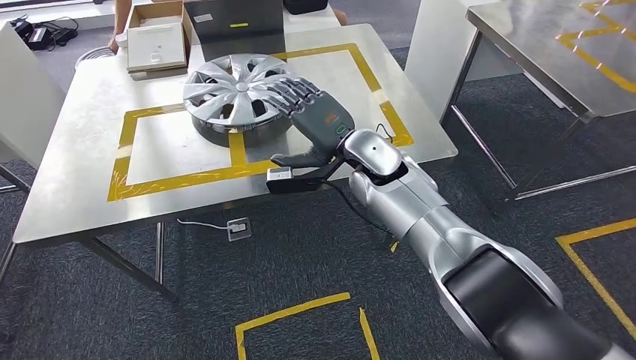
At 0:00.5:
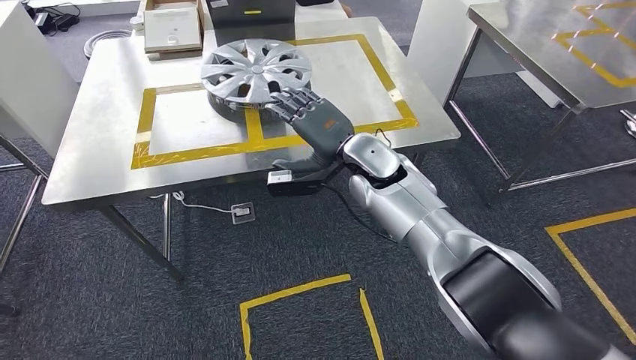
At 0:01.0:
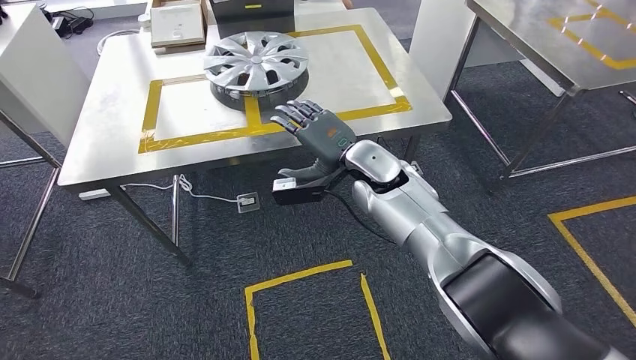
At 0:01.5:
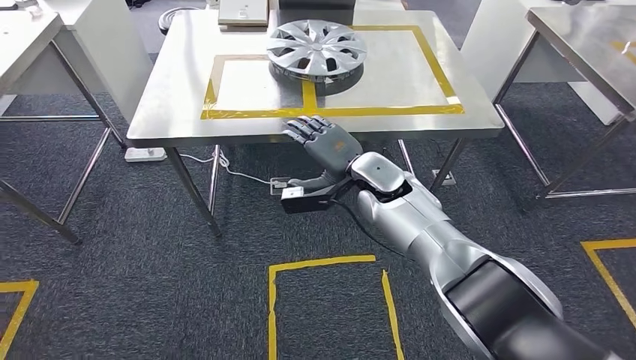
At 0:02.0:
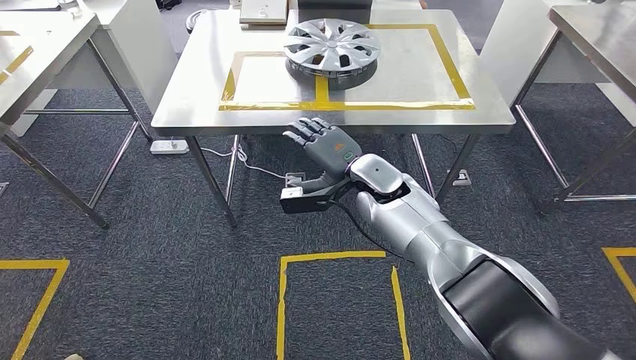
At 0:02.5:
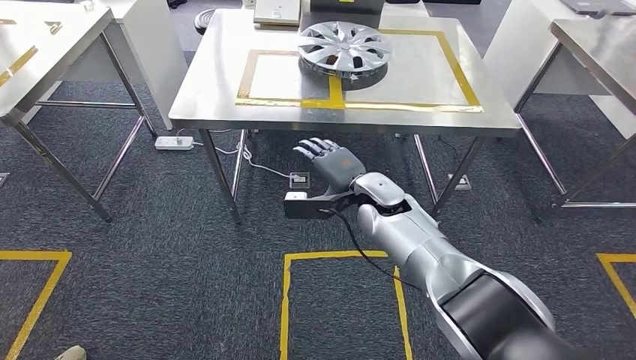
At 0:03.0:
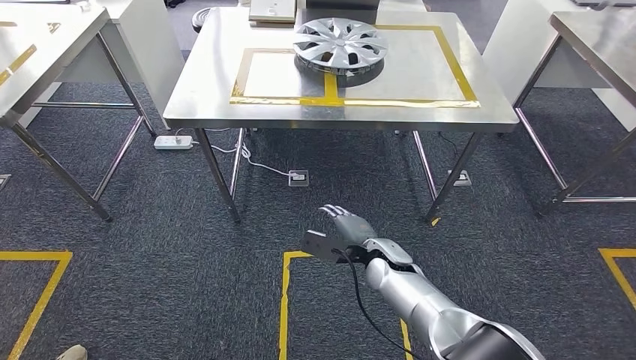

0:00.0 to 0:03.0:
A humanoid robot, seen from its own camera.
Step, 0:00.0 to 0:03.0: Move to the initial position at the workbench.

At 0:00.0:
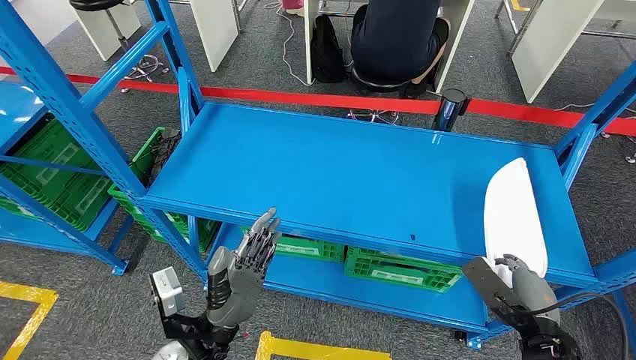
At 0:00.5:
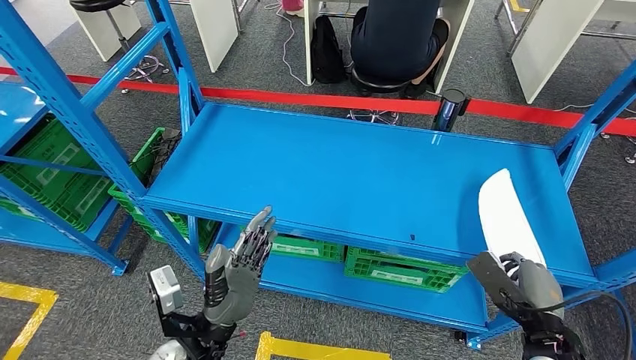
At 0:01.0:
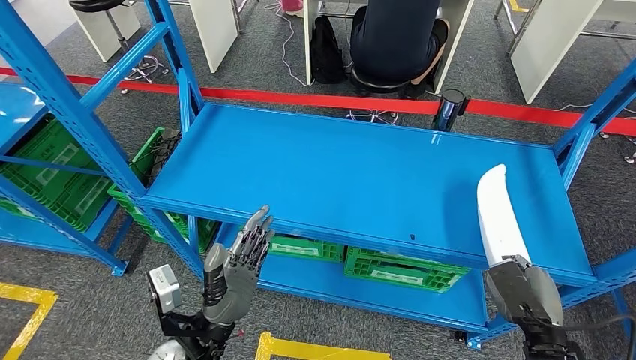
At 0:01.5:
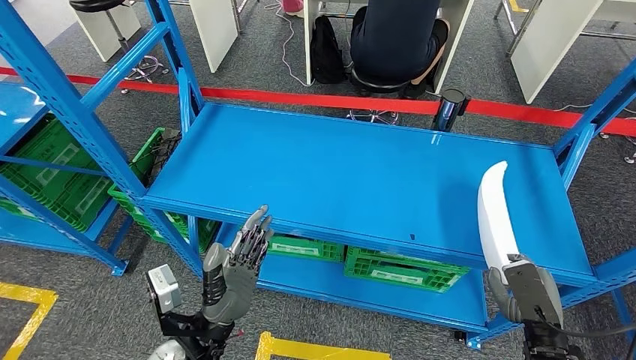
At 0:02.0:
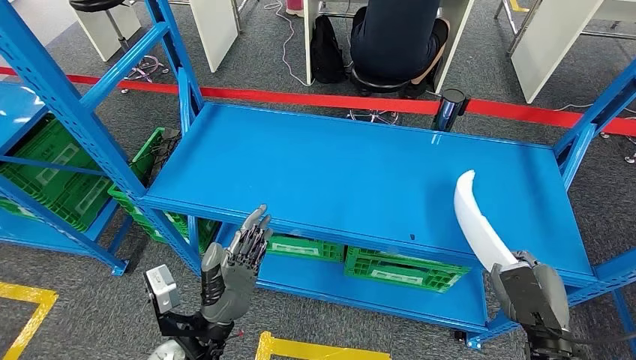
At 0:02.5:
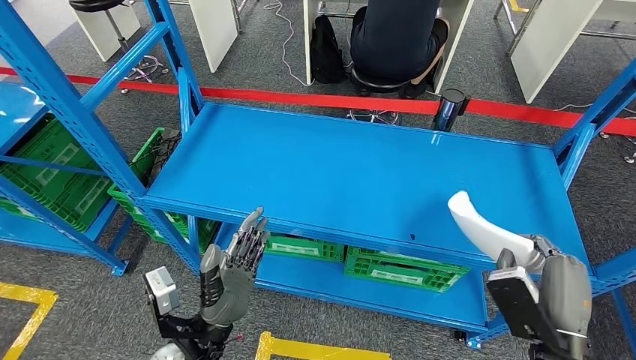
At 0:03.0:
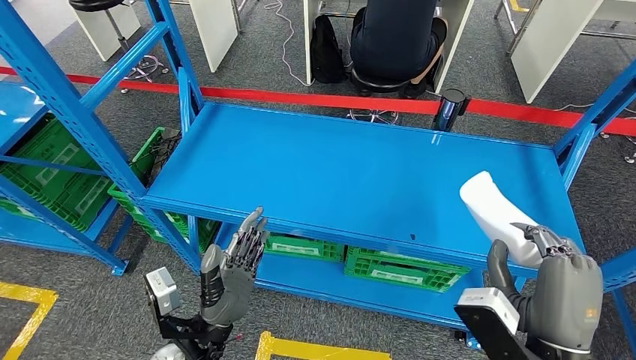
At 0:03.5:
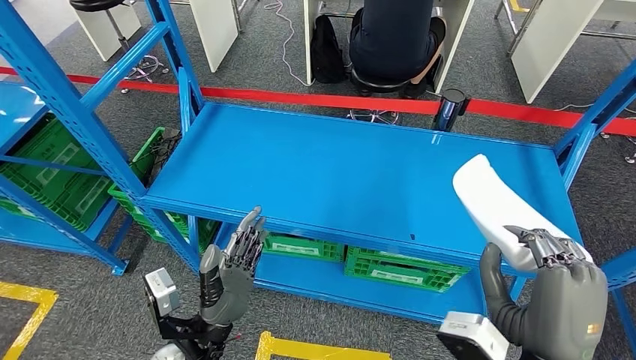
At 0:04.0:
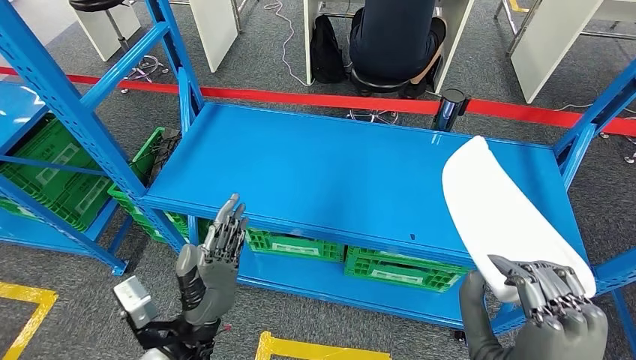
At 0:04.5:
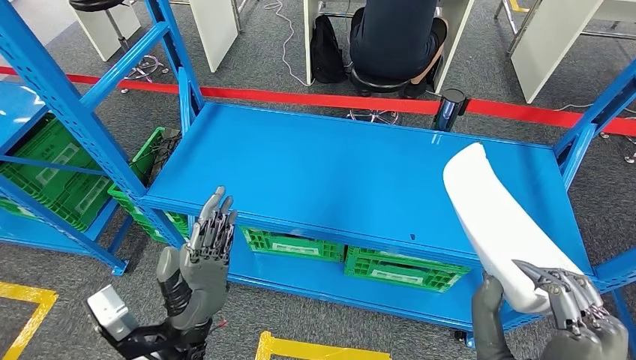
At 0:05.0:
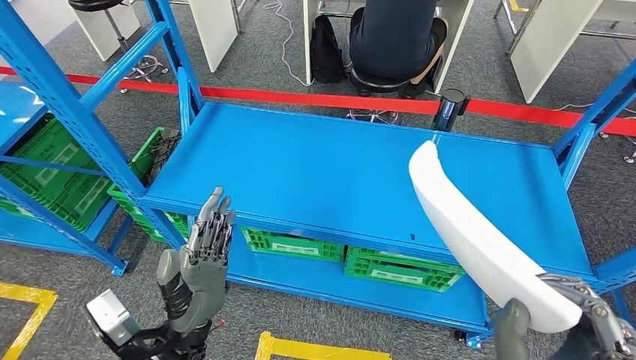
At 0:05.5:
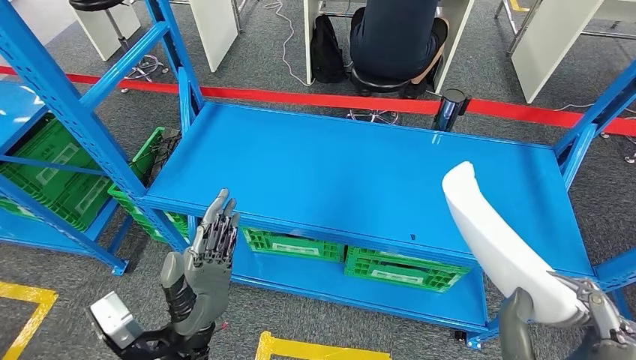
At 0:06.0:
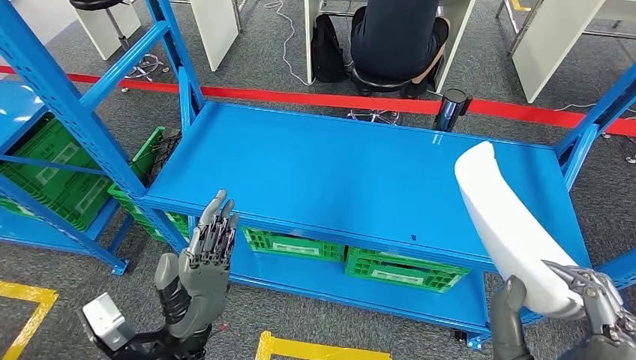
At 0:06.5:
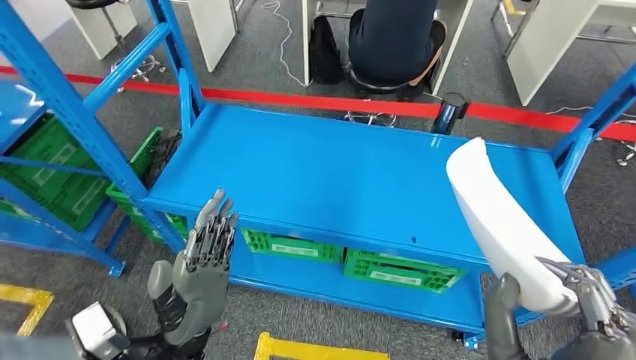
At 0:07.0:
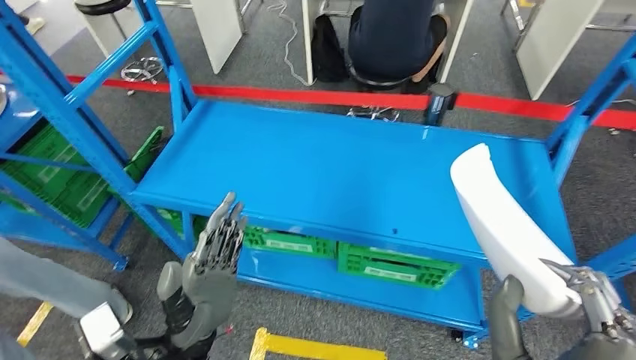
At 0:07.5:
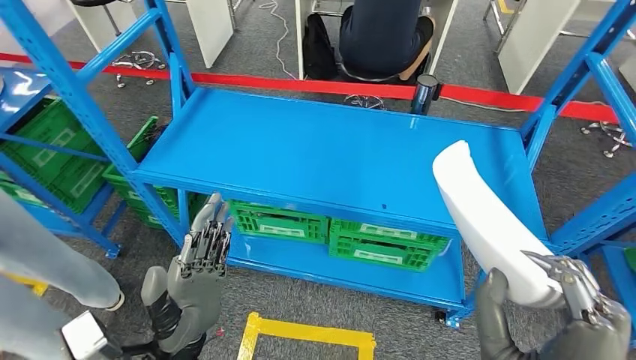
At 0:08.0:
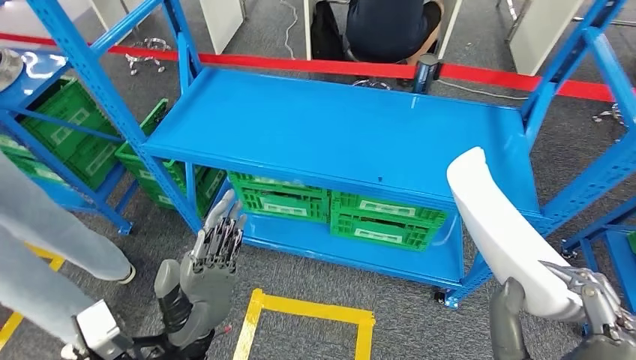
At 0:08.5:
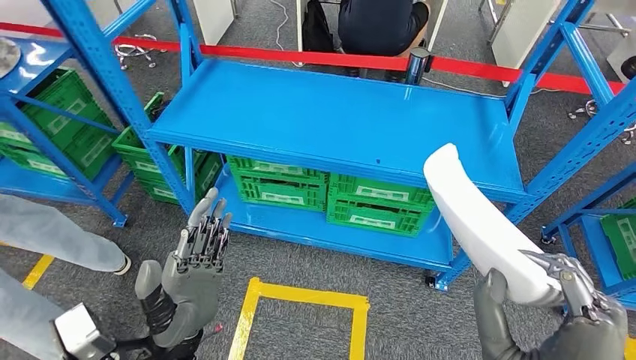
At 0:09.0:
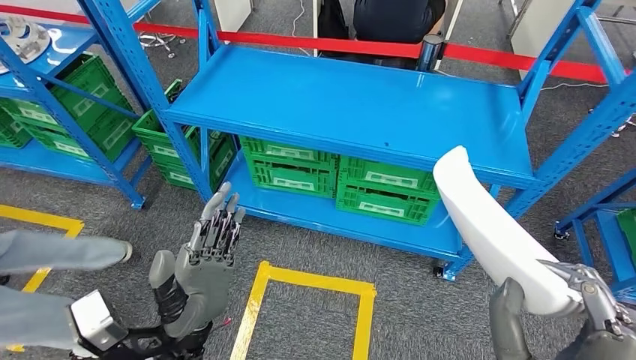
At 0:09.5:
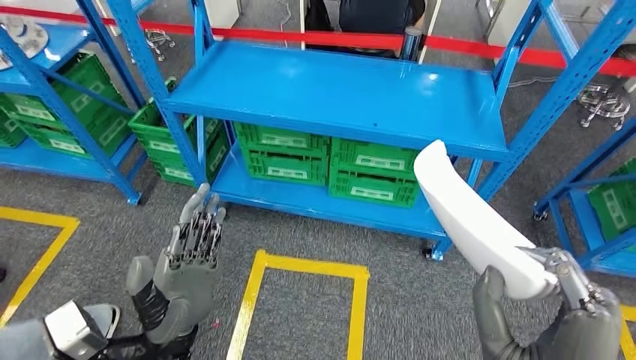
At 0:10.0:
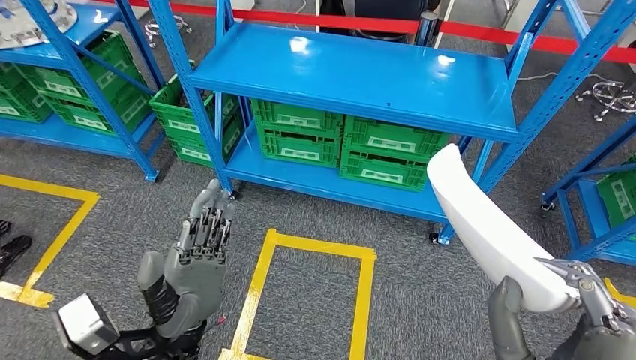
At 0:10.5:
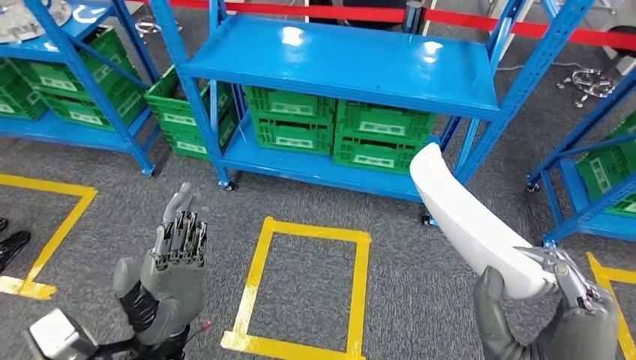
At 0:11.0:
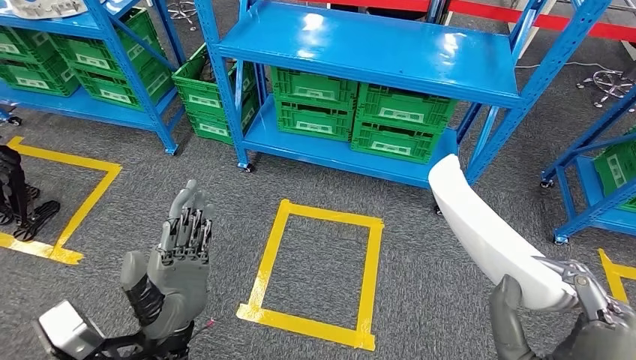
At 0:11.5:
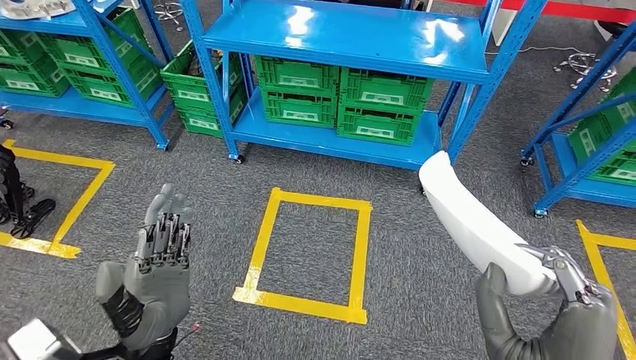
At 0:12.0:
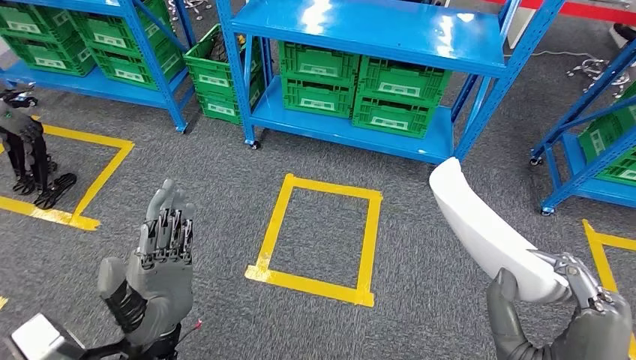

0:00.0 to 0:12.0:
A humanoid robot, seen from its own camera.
Step, 0:00.0 to 0:04.5: Pick up the small parts from the shelf.
0:02.0 to 0:04.0: The right hand is displaced to the left, upward and backward by some 20 cm.

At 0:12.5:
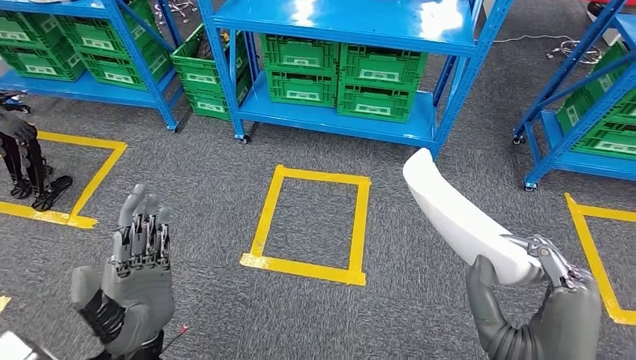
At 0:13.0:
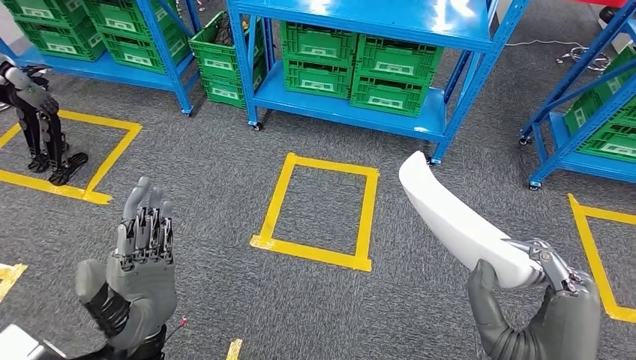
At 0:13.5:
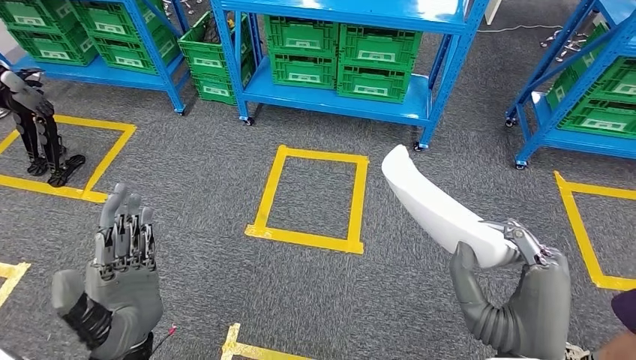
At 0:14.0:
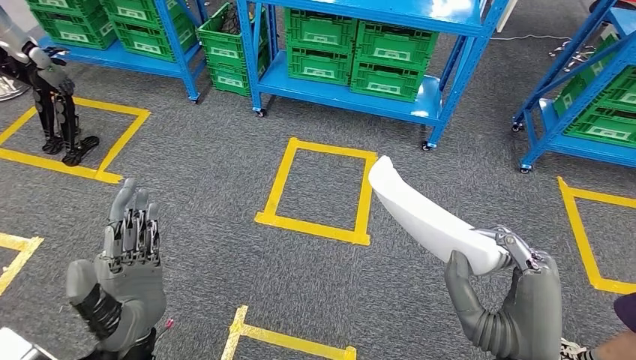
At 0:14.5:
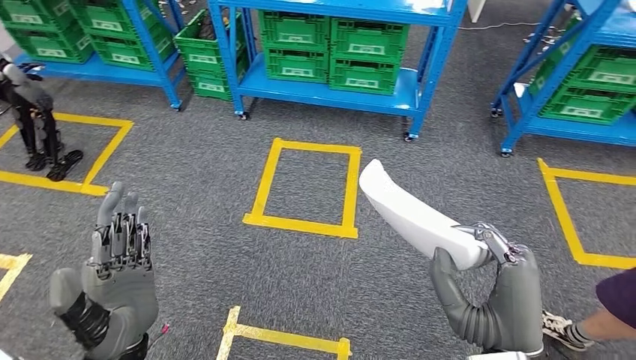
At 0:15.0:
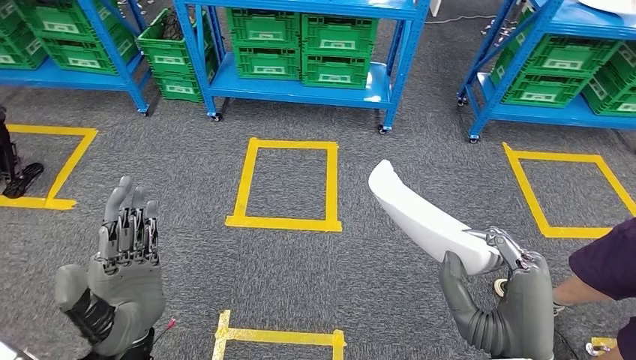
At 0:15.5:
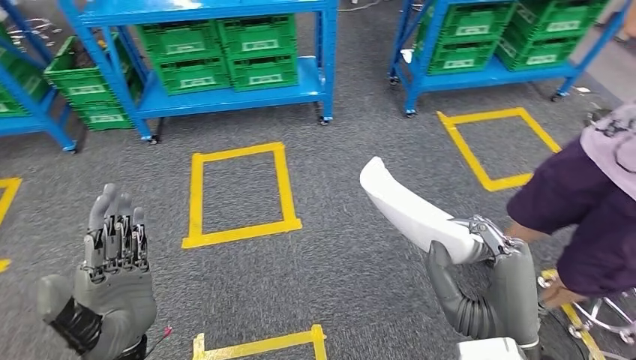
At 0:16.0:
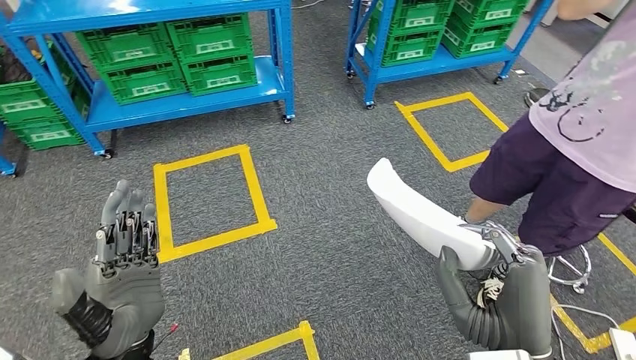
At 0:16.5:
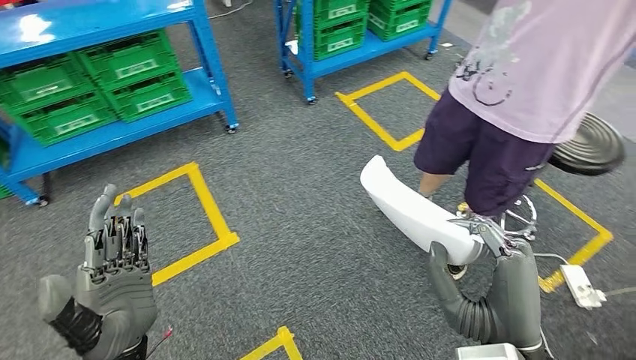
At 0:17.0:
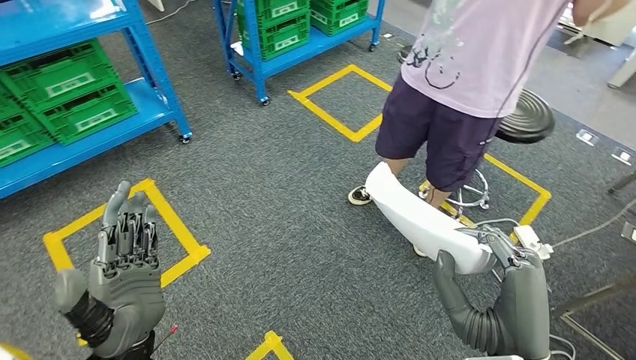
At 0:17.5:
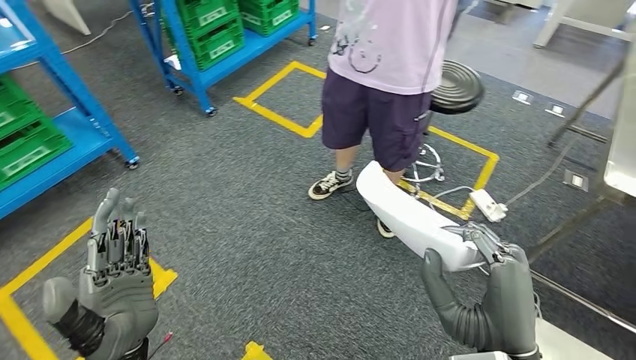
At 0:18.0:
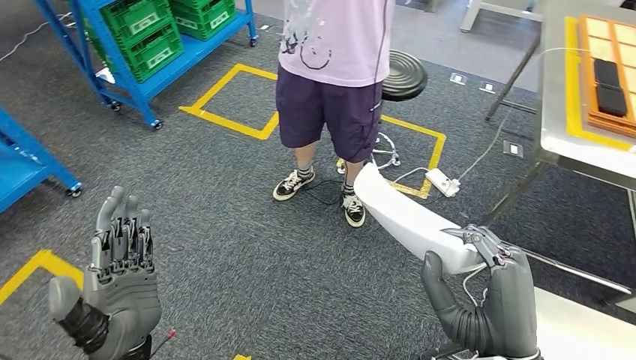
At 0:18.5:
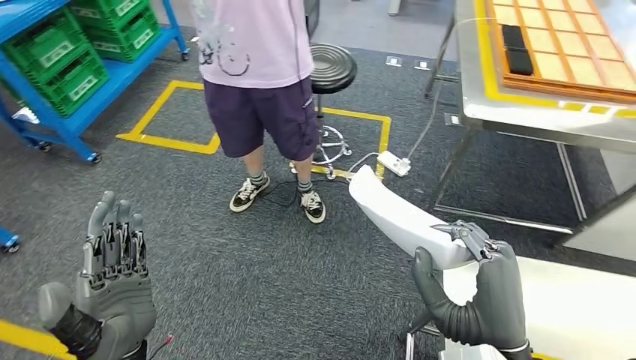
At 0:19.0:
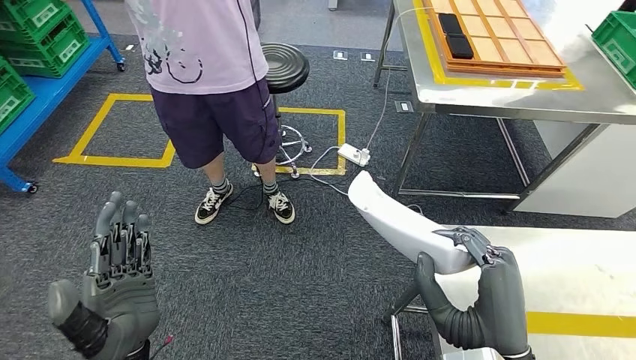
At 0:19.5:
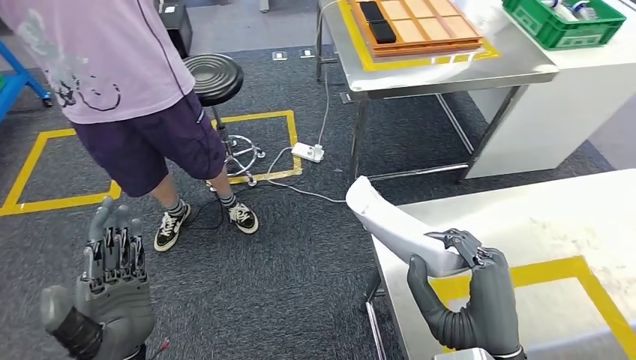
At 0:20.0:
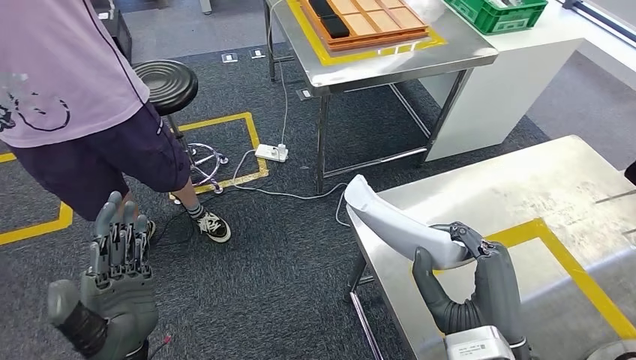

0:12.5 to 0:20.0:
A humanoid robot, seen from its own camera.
Step, 0:12.5 to 0:18.5: Move the small parts to the workbench.
